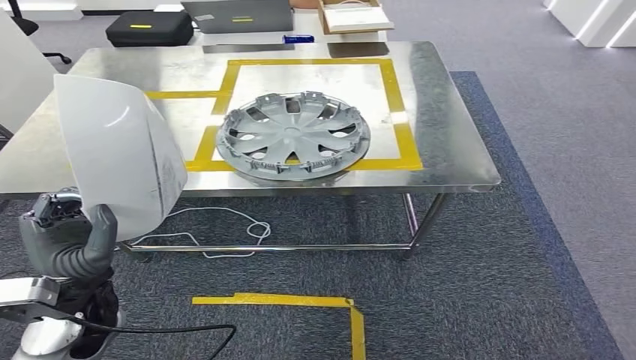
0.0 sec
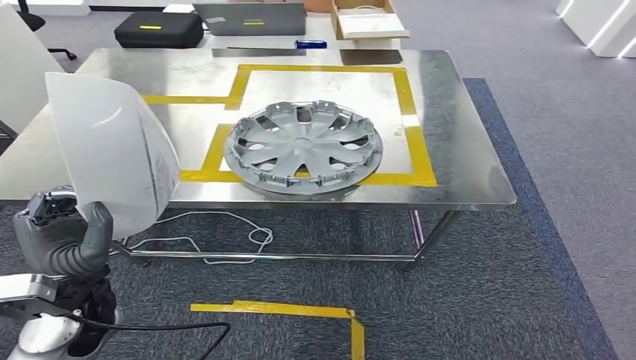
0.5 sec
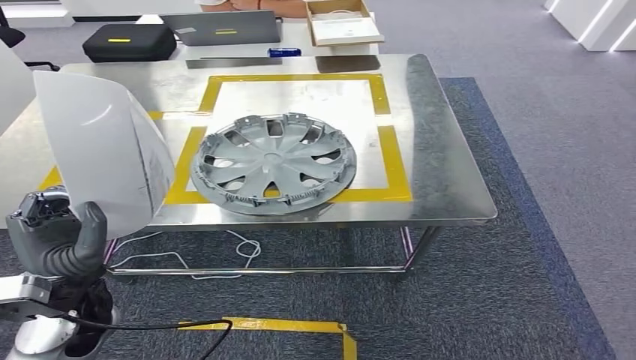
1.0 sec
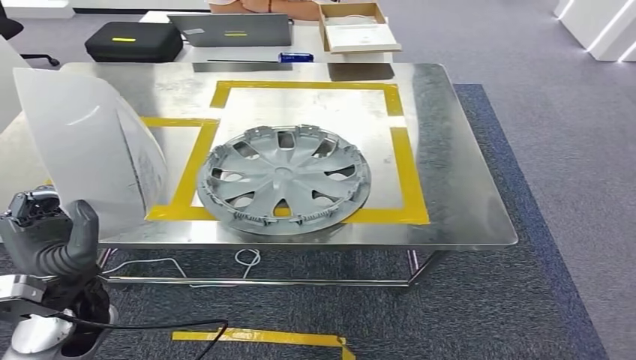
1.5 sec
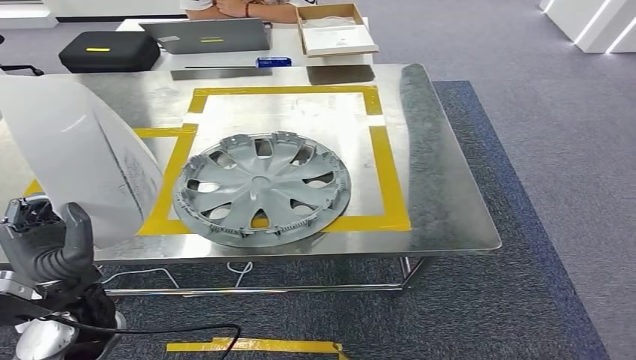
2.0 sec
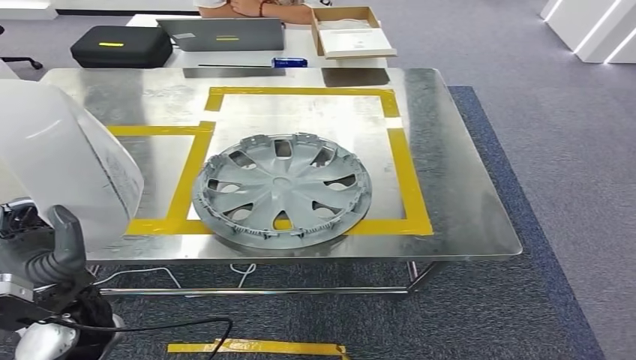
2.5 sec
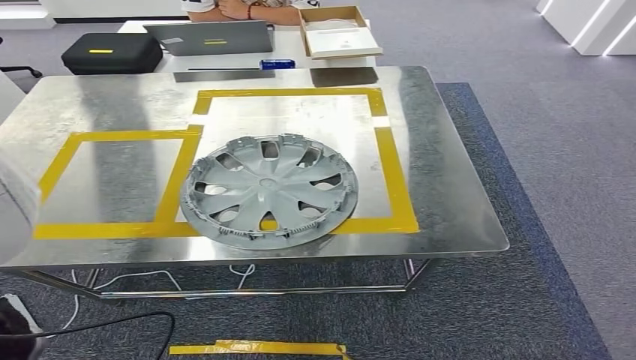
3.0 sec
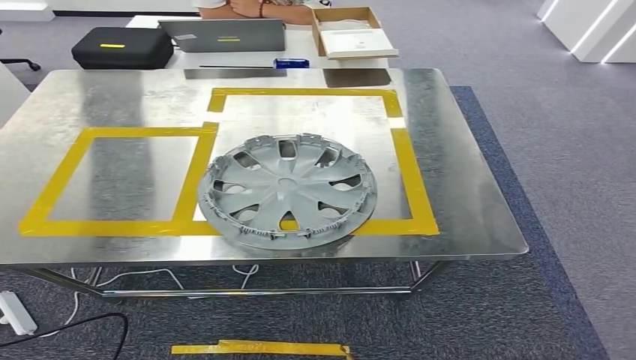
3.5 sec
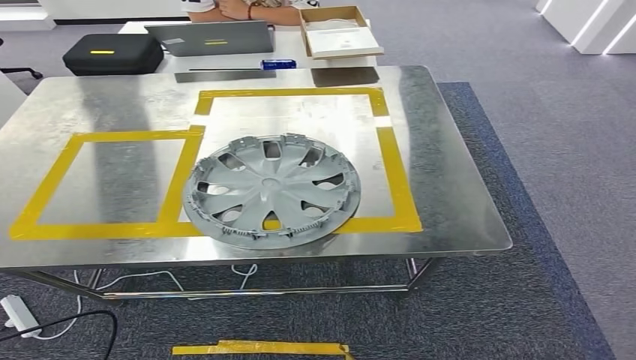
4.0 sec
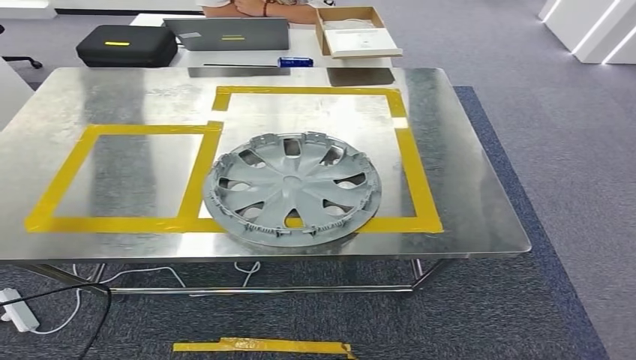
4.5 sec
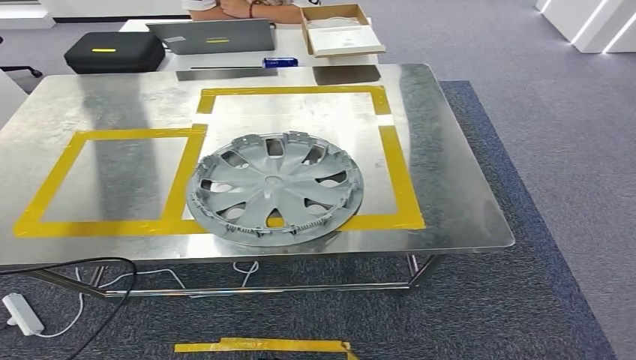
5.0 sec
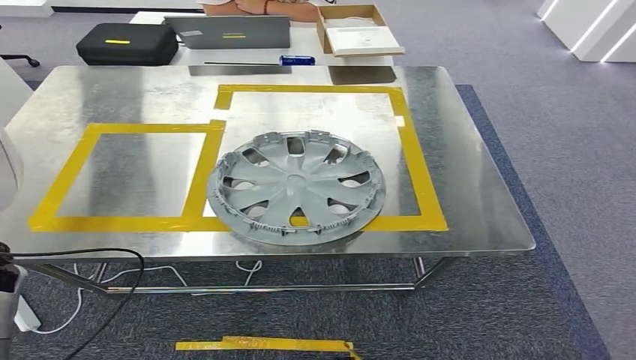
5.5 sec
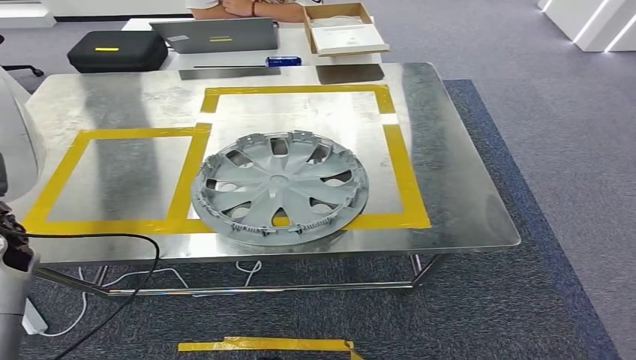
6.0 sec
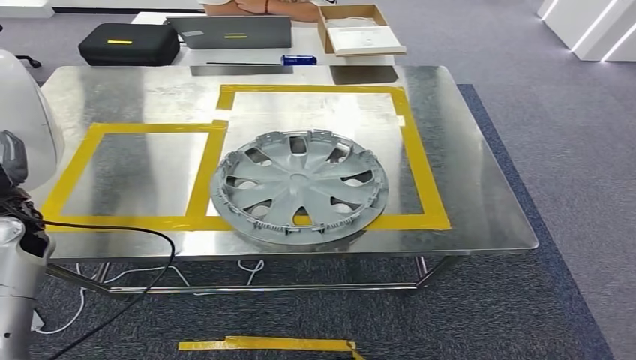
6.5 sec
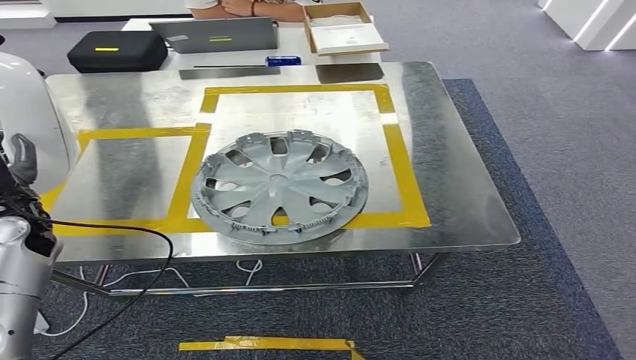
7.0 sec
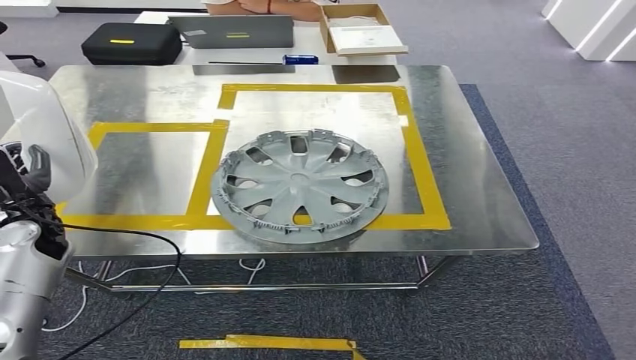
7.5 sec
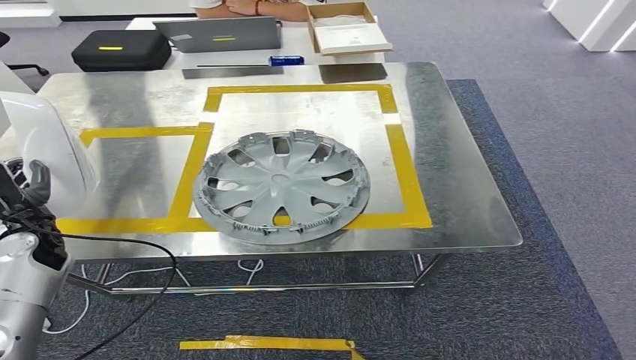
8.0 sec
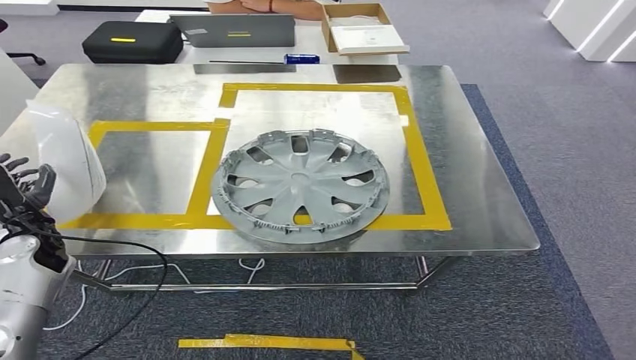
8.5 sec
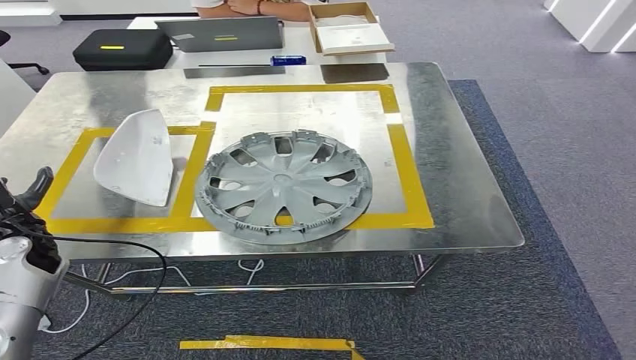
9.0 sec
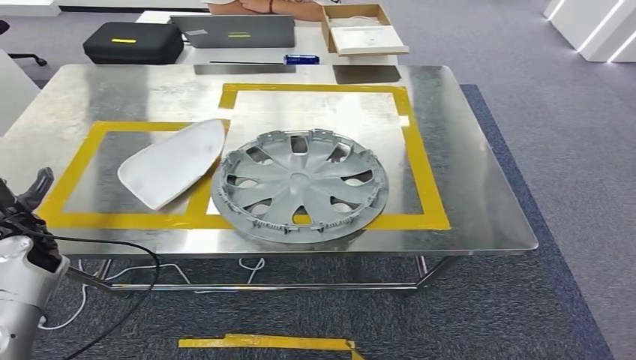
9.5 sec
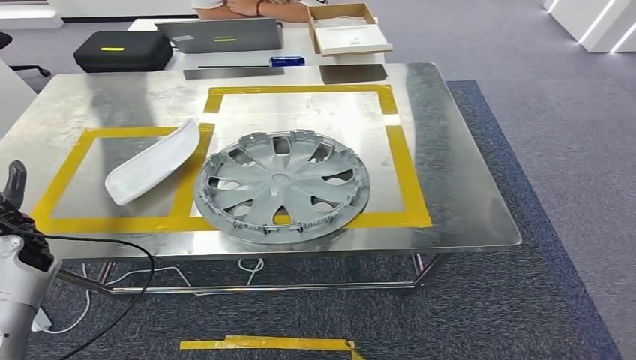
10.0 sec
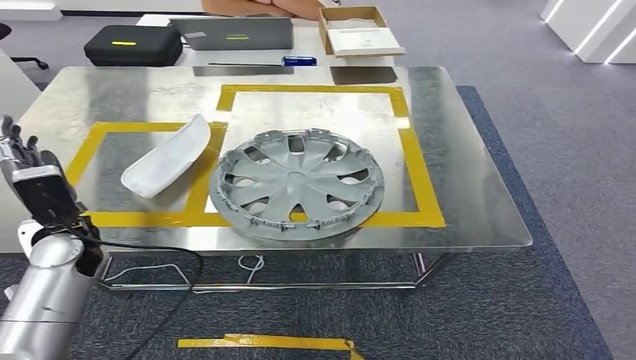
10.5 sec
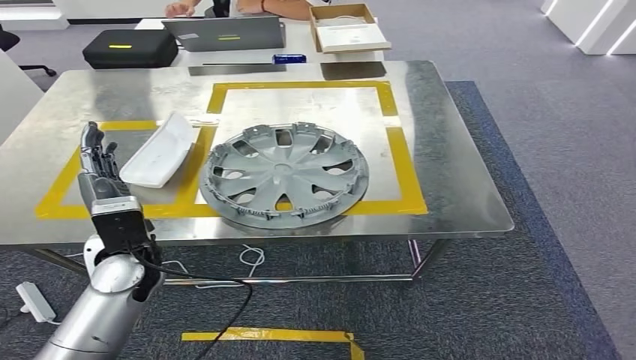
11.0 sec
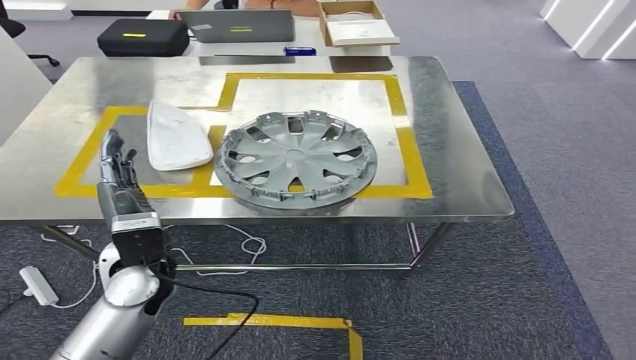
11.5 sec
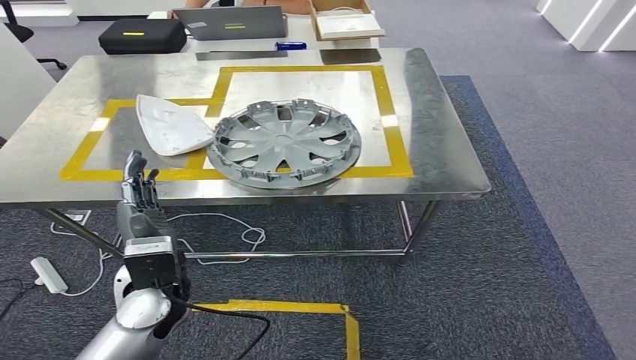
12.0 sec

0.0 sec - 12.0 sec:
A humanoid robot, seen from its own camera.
Step, 0.5 sec - 11.5 sec: Insert the small parts into the corresponding holes on the workbench.
6.0 sec - 8.0 sec: The left hand goes some 5 cm downward.
8.0 sec - 10.0 sec: There are only small adjustments of the hands.

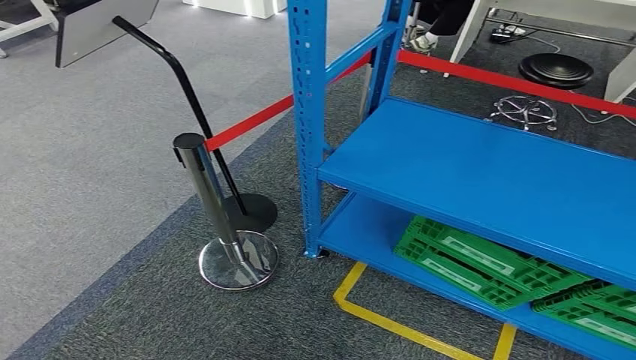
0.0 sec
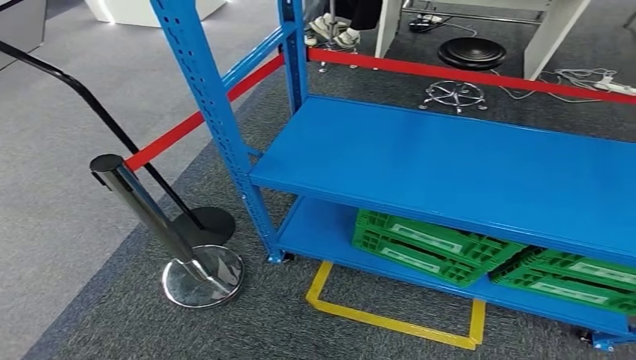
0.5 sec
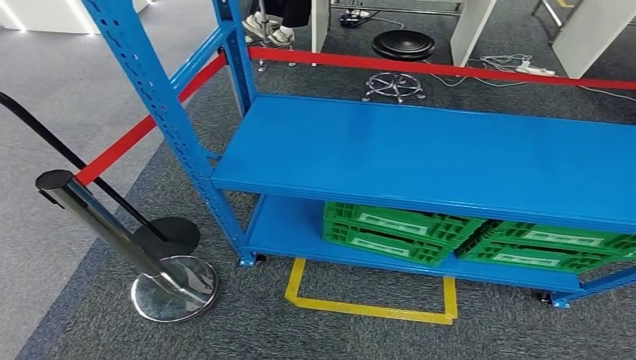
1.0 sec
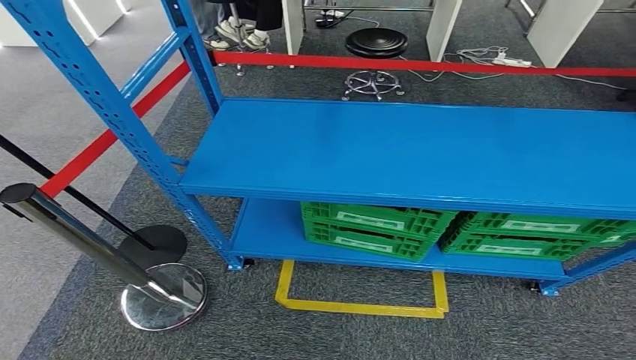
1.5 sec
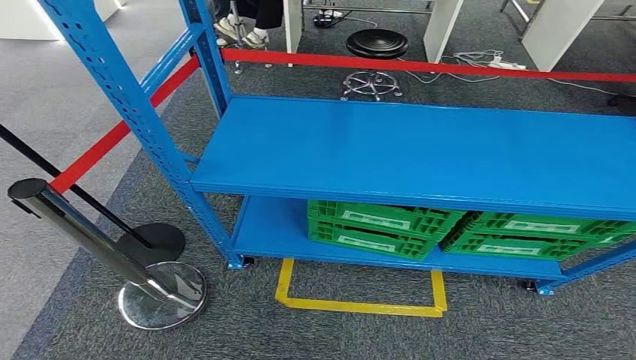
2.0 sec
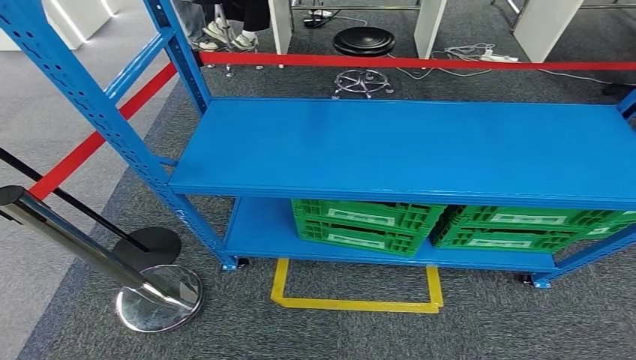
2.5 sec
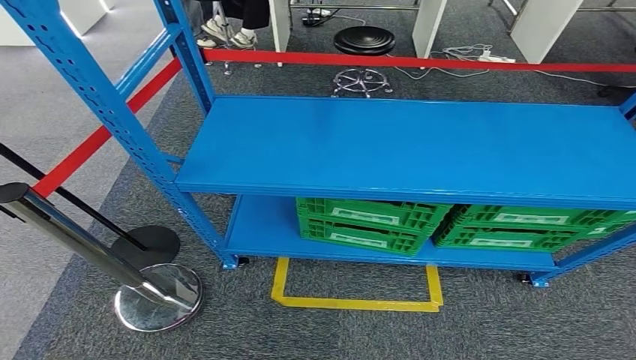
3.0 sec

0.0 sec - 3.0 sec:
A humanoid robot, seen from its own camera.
Step, 0.0 sec - 3.0 sec: Move to the initial position at the workbench.
